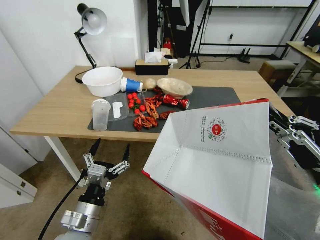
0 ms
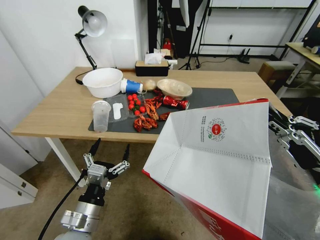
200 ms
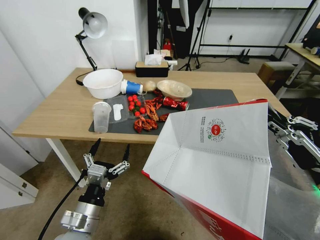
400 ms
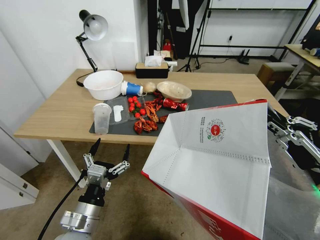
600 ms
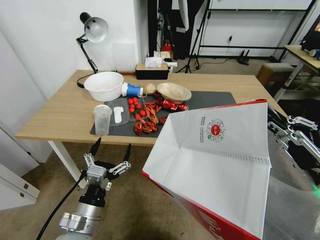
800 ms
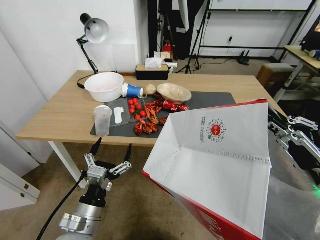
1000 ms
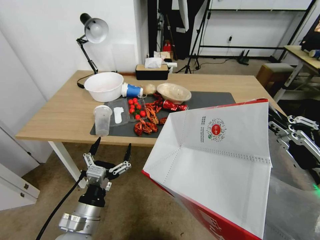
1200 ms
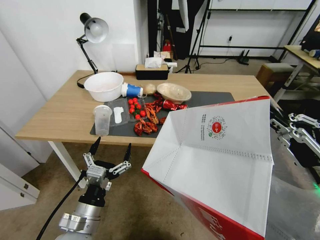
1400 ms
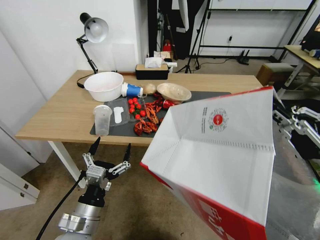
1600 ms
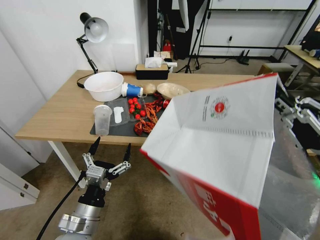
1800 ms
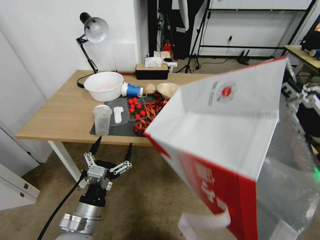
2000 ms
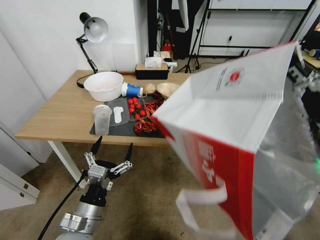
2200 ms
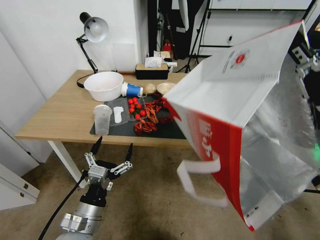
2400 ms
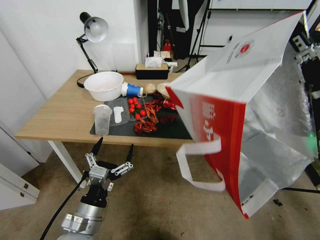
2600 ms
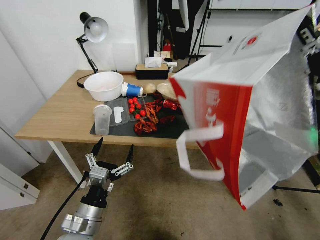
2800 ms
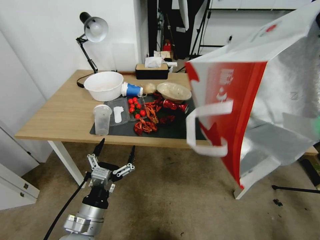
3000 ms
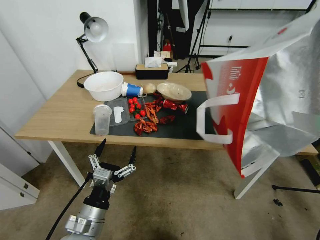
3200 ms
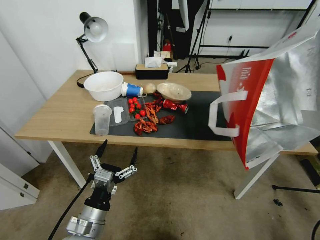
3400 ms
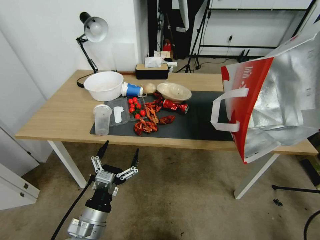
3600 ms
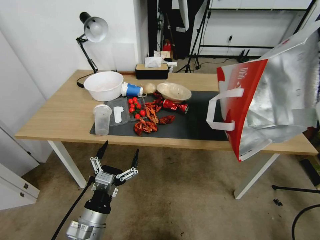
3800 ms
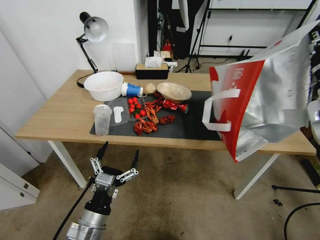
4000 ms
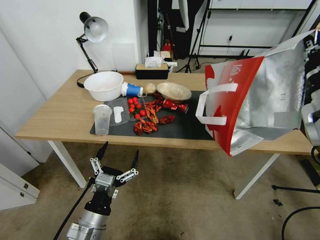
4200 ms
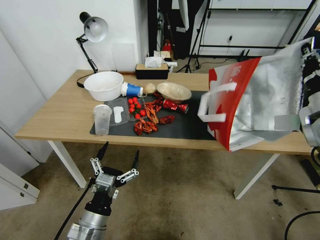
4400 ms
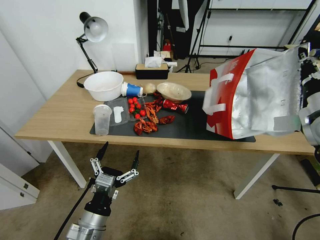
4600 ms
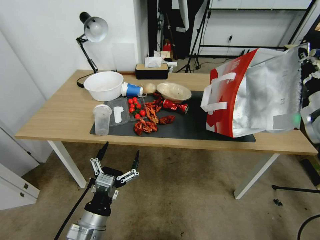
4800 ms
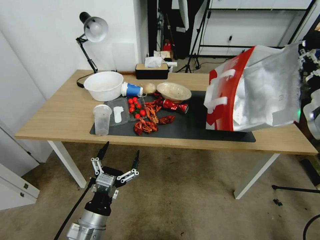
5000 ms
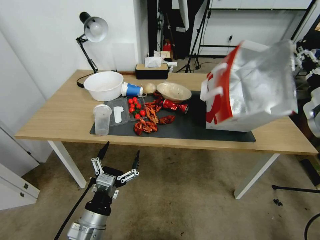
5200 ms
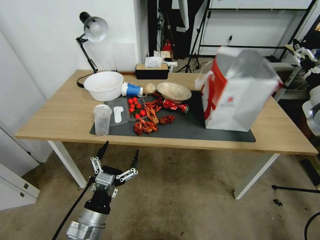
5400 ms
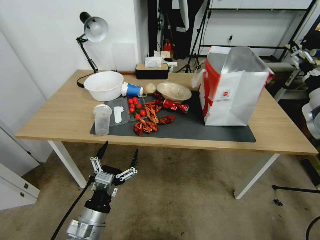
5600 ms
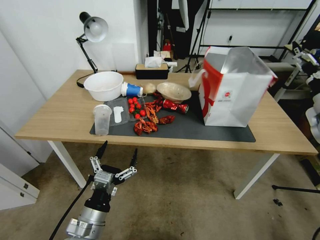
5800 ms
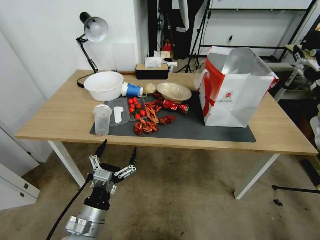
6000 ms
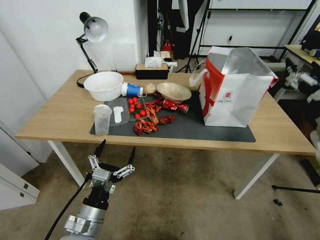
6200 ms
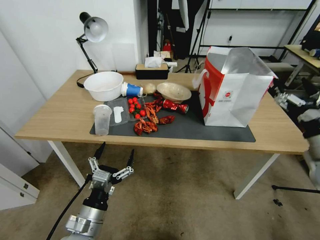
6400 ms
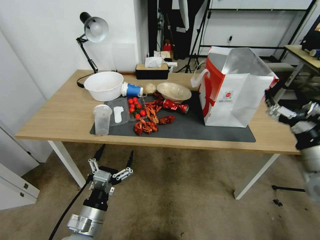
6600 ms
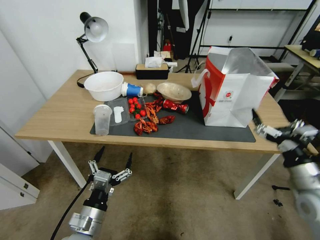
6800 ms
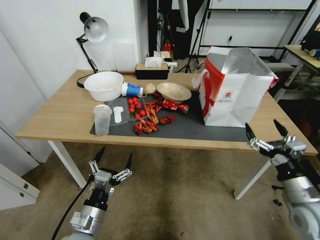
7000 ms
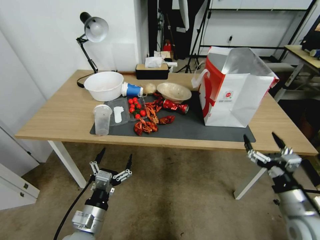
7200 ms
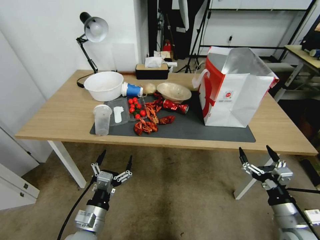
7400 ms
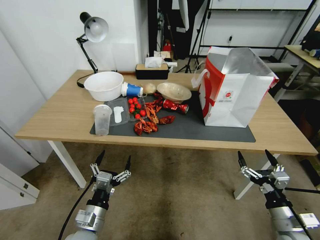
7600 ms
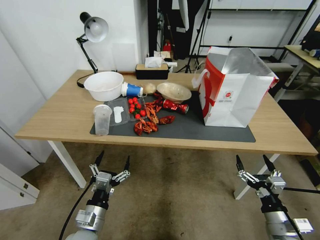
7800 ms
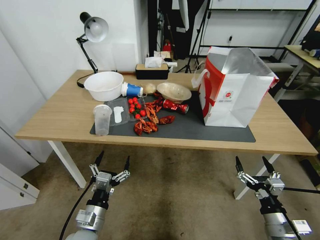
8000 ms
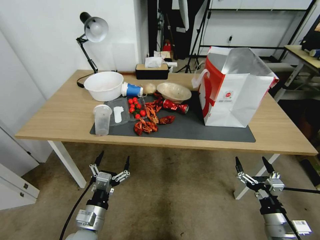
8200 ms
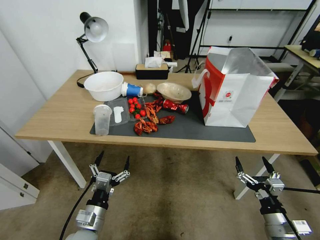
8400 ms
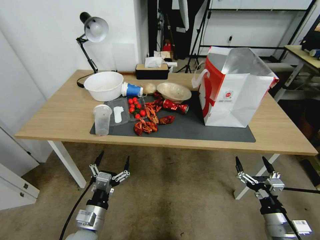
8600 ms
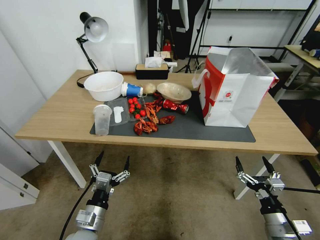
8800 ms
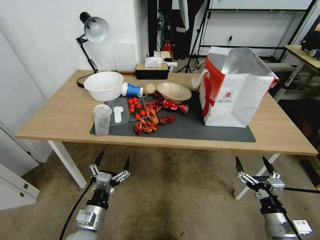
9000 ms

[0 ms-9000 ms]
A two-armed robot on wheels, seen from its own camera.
Task of the whole recording: Pick up the food delivery bag from the floor and place it on the table.
1600 ms to 3000 ms: The right gripper goes about 10 cm forward and upward.
3000 ms to 4400 ms: The right gripper travels forward and downward by some 10 cm.
4400 ms to 6000 ms: The right gripper opens.
6000 ms to 7600 ms: The left gripper is displaced downward by some 5 cm; the right gripper is displaced downward and backward by about 30 cm.
7600 ms to 9000 ms: The grippers move only a little.

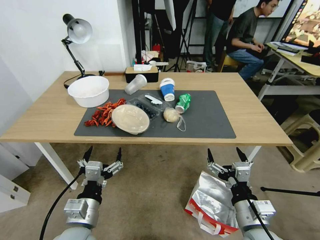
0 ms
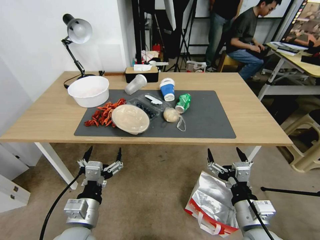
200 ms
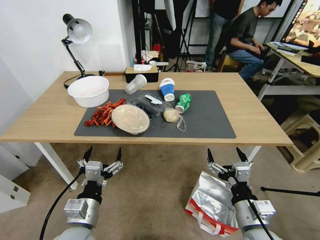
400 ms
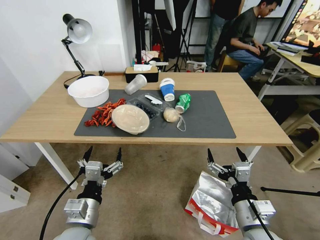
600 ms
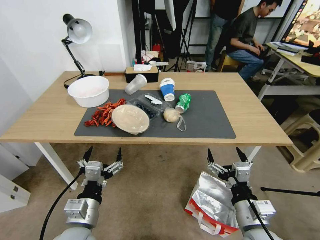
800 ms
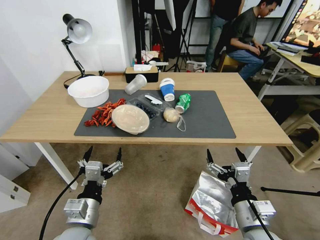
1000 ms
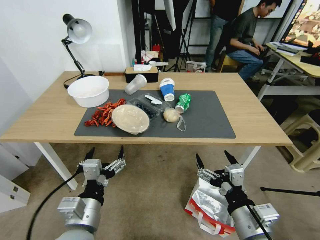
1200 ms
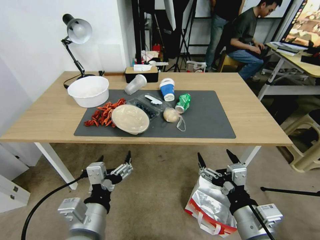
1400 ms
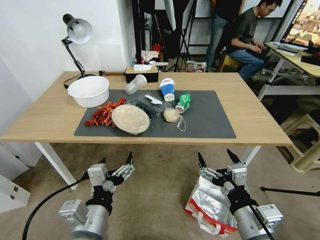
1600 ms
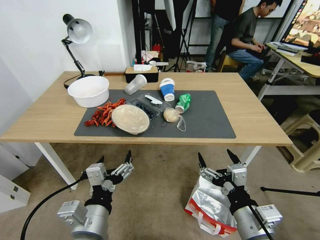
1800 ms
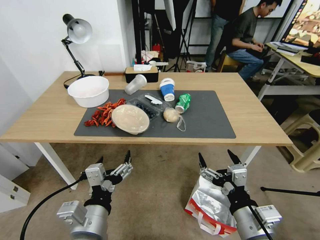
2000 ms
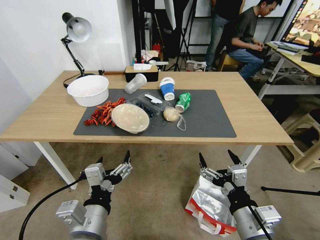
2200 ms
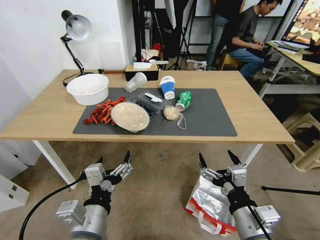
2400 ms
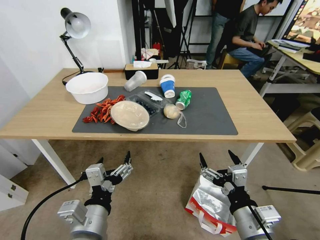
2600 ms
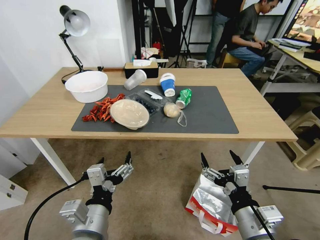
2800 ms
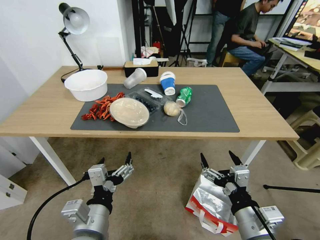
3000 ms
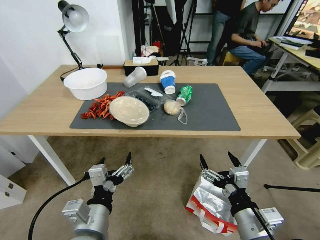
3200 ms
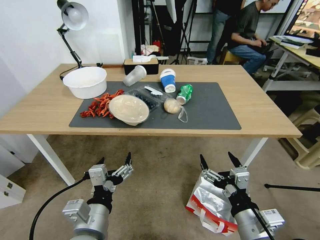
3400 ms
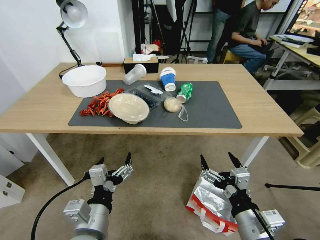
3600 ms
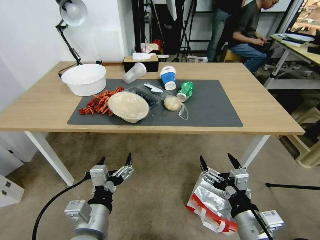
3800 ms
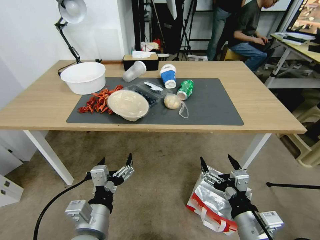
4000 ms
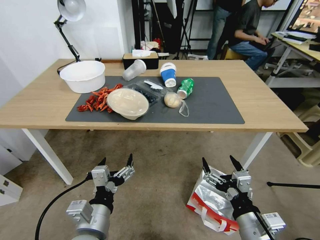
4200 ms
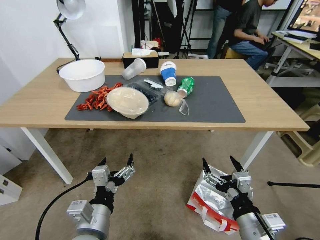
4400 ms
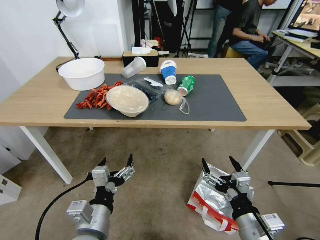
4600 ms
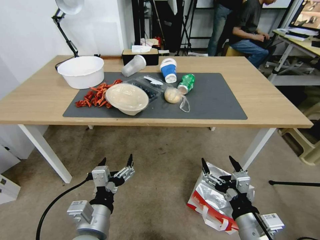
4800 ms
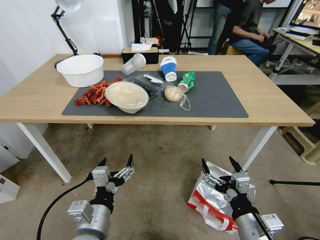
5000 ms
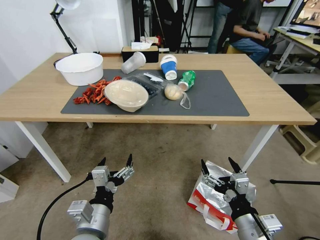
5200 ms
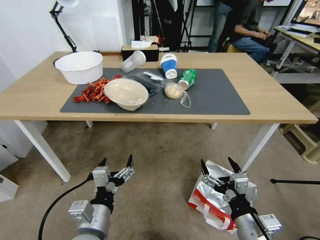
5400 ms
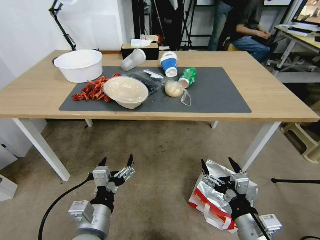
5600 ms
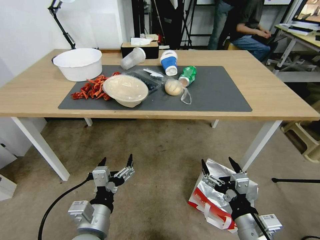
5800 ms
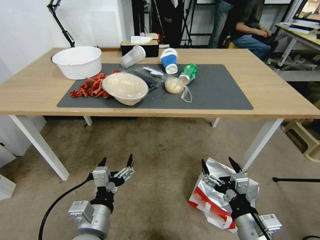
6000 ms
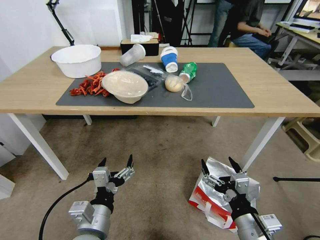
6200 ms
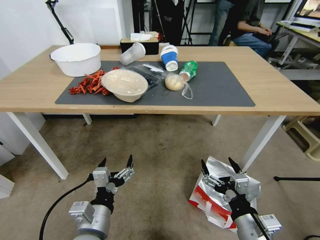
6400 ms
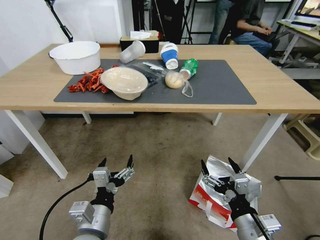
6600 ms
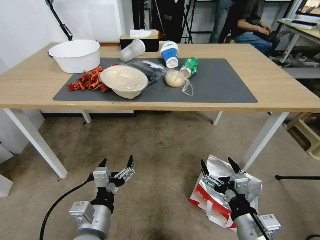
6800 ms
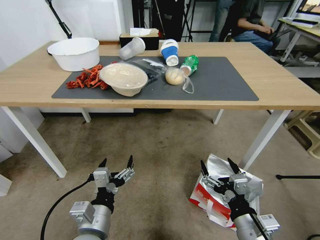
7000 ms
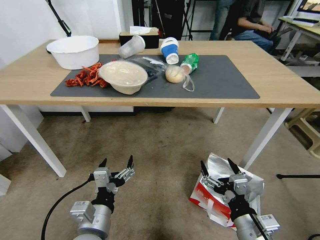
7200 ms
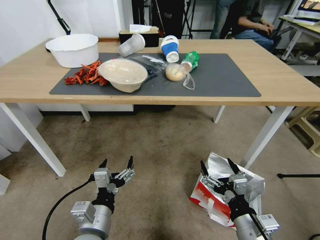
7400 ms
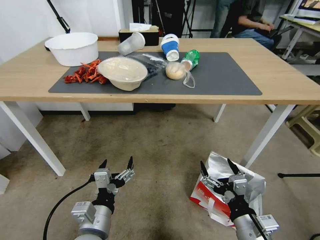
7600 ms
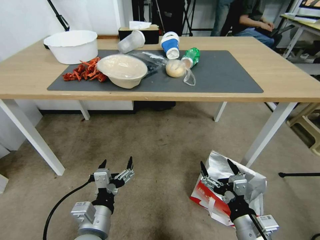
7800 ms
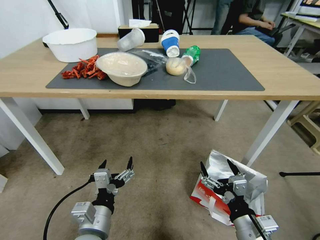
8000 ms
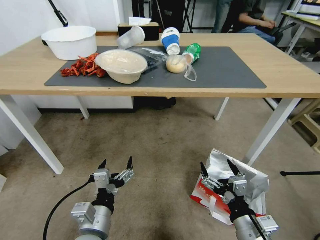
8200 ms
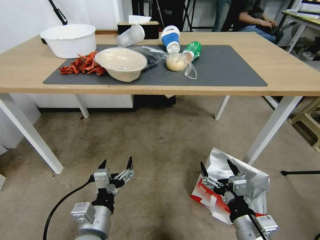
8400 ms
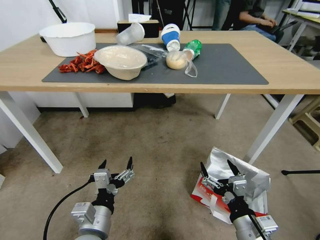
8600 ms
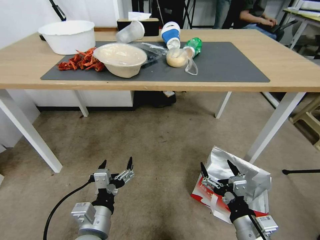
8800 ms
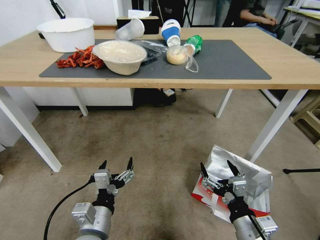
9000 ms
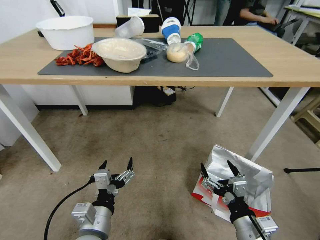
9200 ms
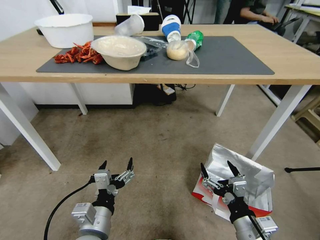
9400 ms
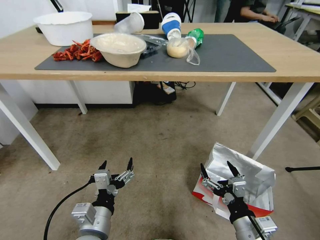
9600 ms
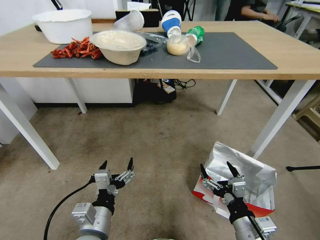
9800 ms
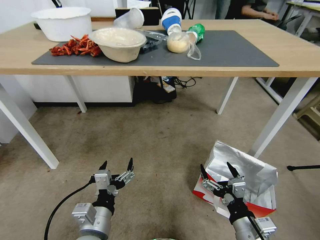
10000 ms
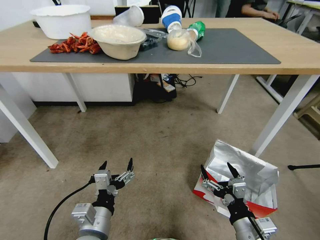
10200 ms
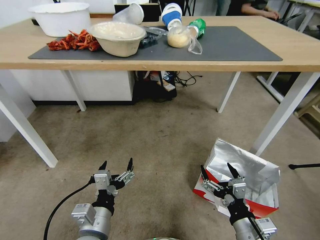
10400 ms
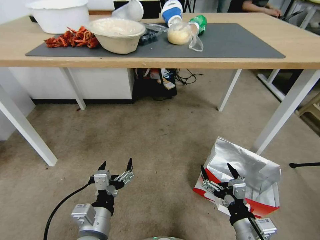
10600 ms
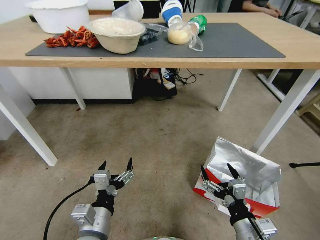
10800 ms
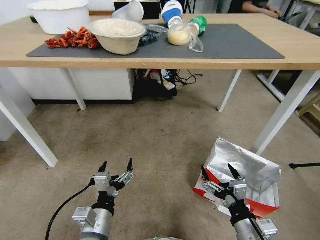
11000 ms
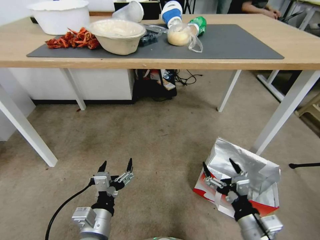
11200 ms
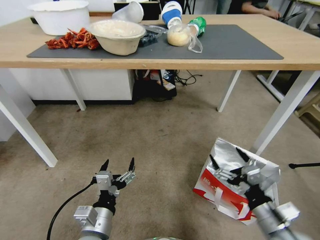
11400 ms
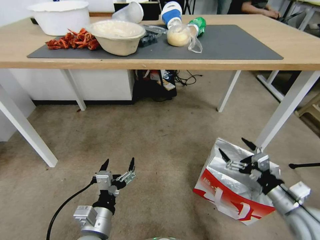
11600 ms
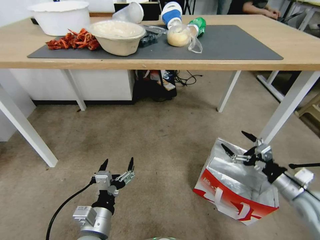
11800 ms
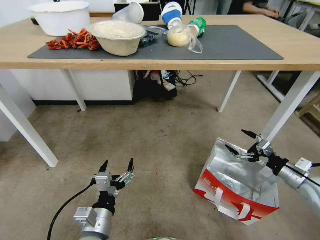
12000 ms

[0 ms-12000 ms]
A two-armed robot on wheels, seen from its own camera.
Task of the whole recording: Pick up the food delivery bag from the floor and place it on the table.
10400 ms to 12000 ms: The right gripper is displaced to the right and forward by about 30 cm.

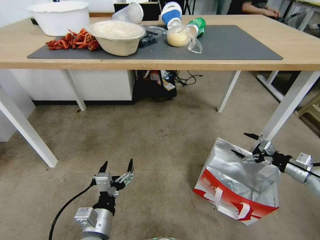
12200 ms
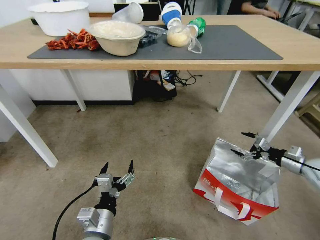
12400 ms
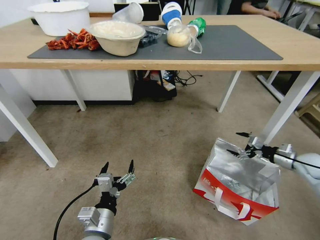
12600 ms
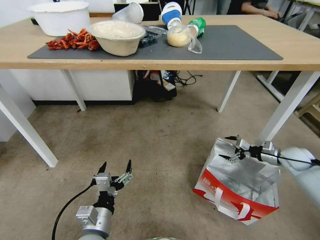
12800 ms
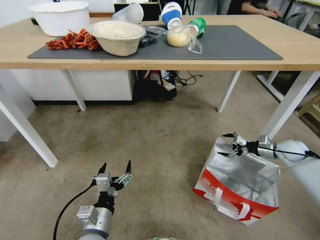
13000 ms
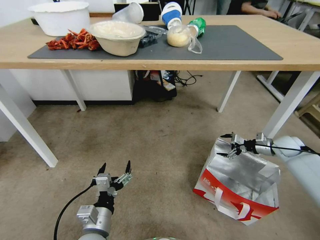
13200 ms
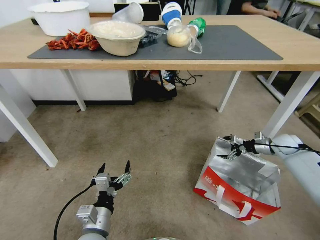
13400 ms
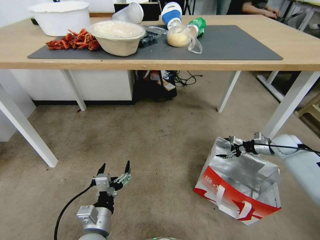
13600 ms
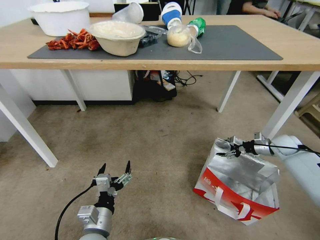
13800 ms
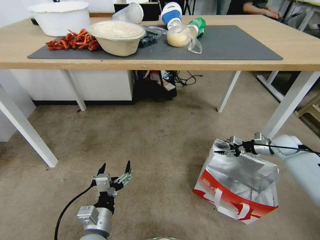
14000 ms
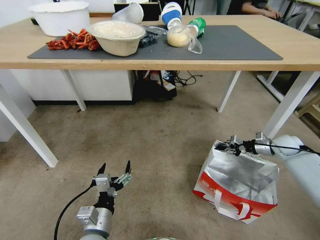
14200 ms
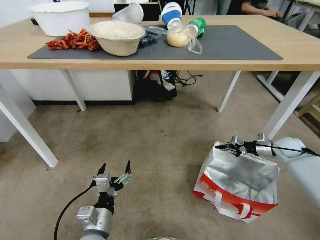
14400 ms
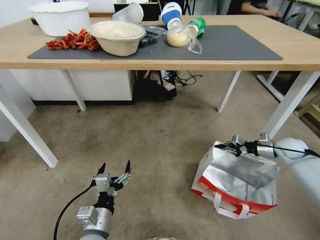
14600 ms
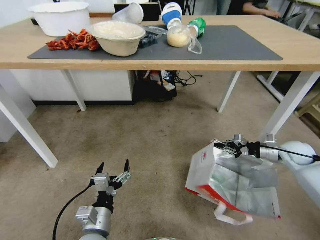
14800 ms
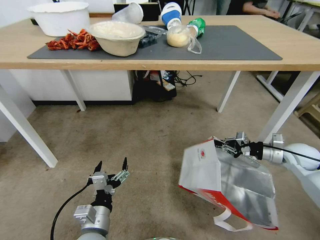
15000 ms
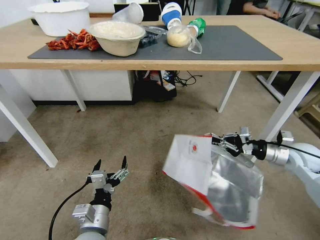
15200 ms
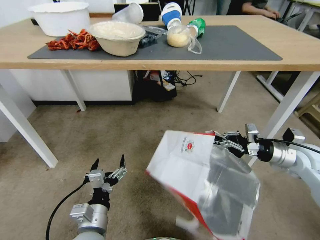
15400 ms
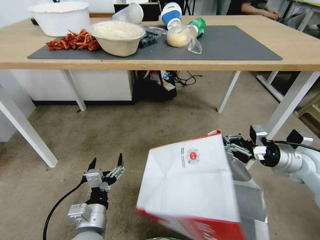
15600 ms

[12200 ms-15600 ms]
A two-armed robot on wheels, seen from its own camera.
Task of the whole recording: Pick up the food delivery bag from the floor and place it on the table.
12200 ms to 13800 ms: The right gripper moves forward, about 15 cm, and closes its fingers.
13800 ms to 15600 ms: The right gripper heads backward, upward and to the left, covering some 20 cm, and closes.
